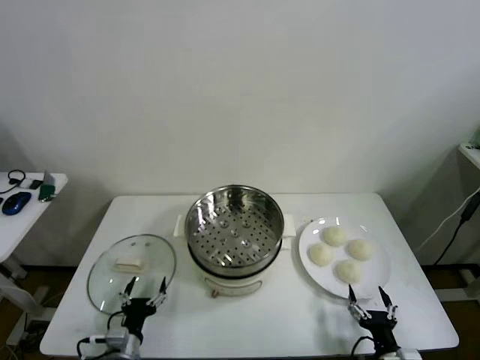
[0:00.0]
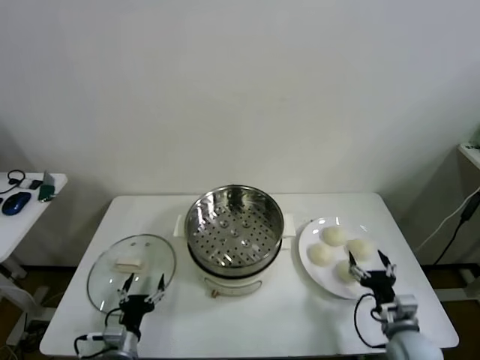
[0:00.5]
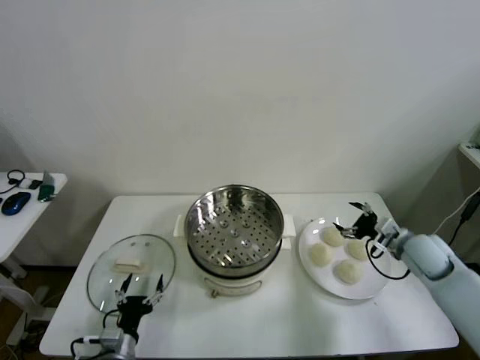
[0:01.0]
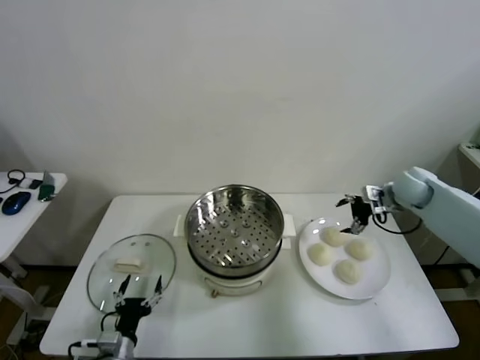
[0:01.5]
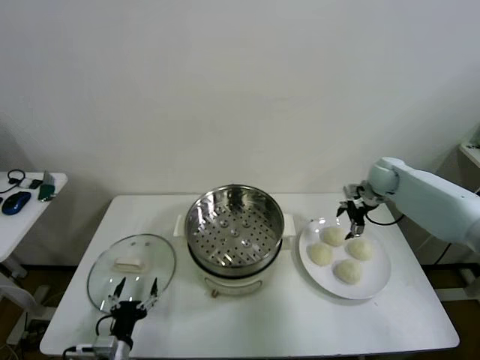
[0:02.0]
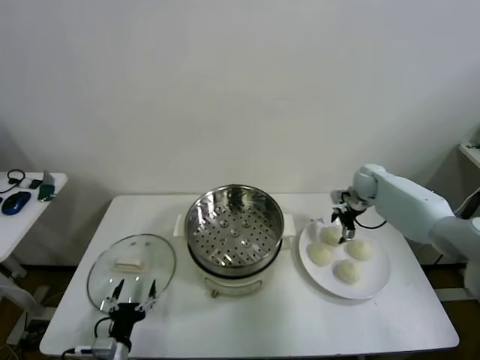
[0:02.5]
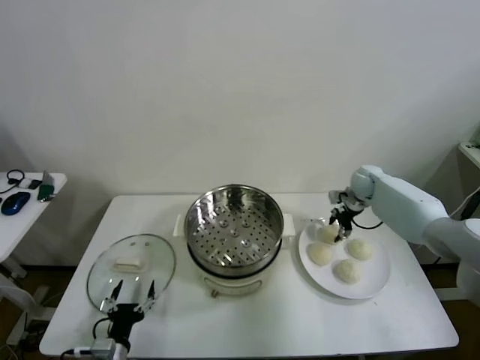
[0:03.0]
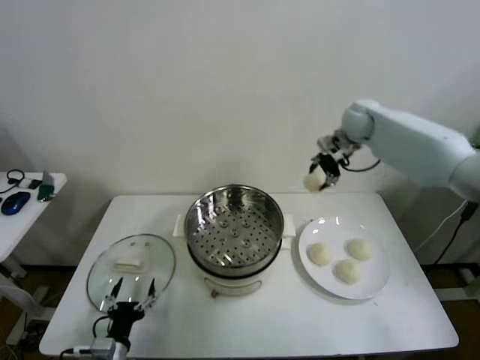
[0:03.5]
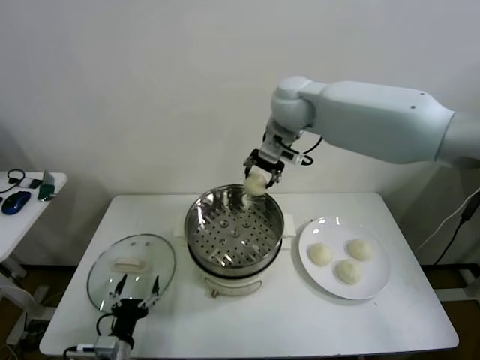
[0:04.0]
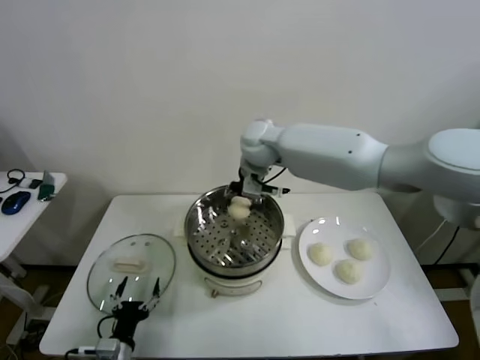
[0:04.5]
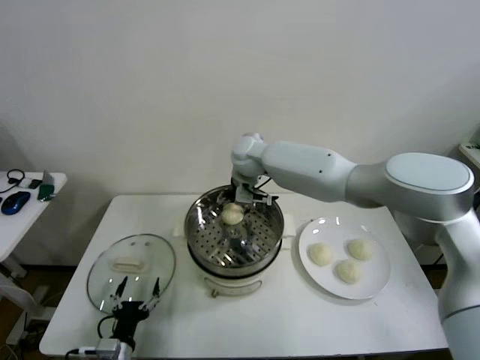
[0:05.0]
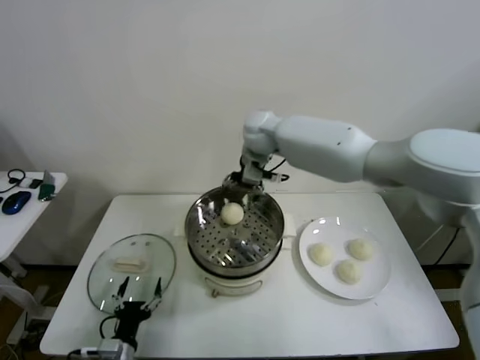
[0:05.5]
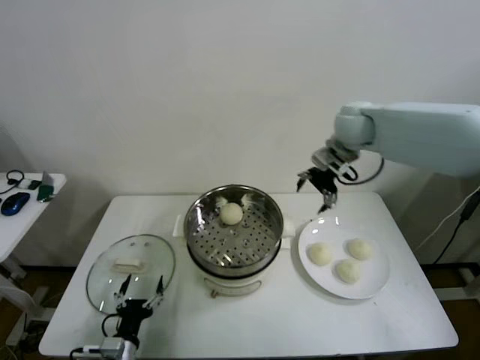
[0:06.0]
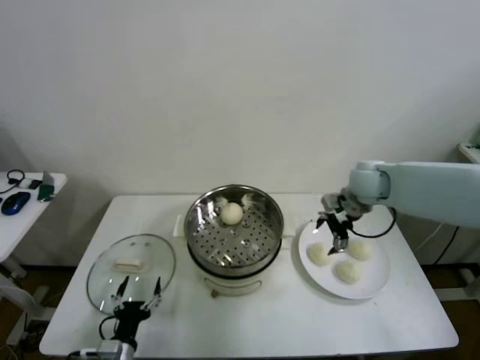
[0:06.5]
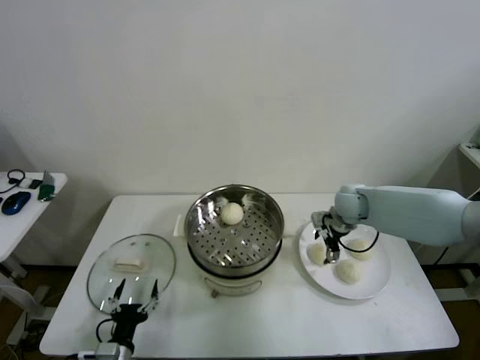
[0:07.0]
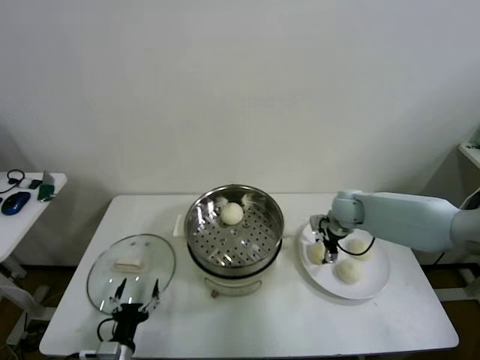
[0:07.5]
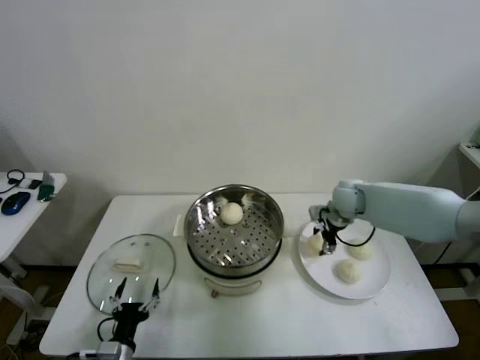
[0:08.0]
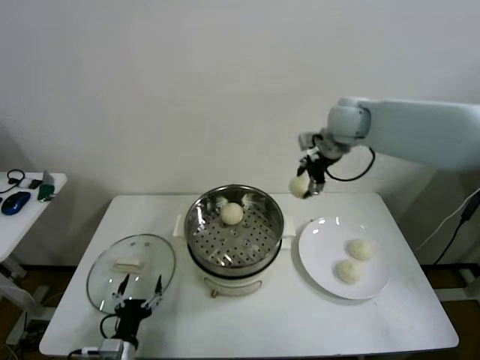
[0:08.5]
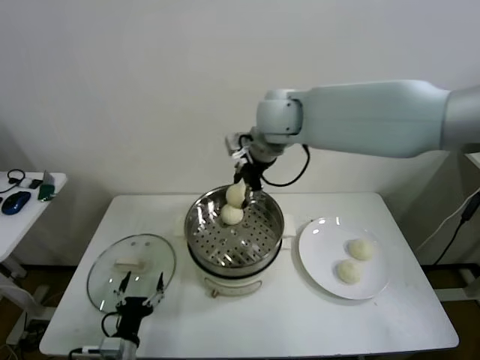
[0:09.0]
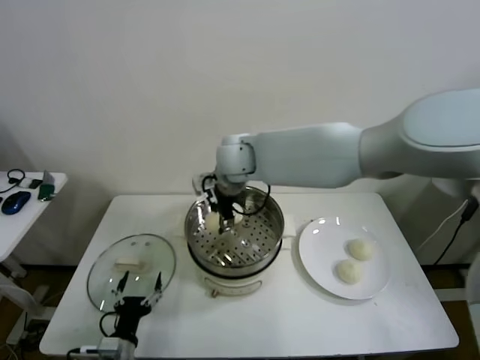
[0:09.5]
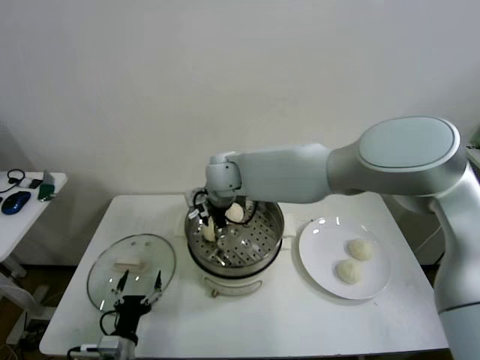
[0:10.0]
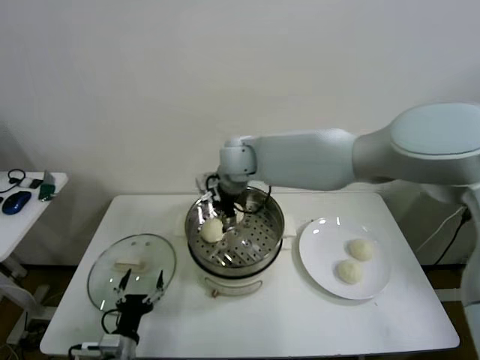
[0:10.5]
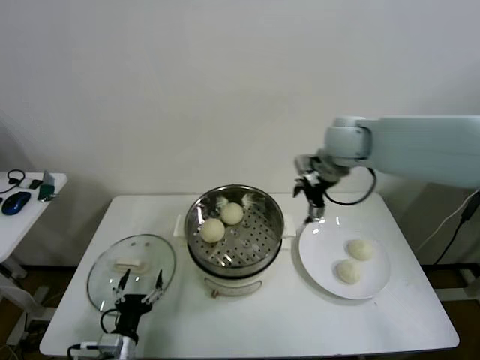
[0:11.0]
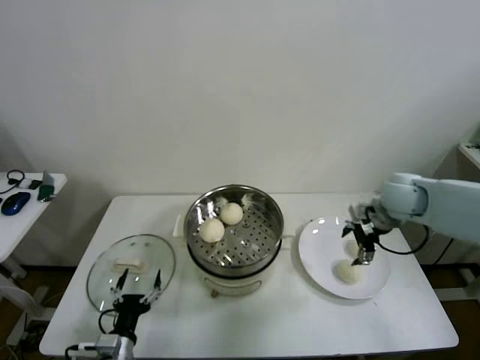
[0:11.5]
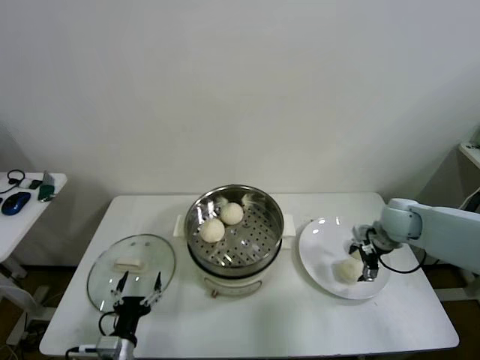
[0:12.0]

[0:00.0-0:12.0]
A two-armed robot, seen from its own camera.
Step, 0:00.0 to 0:02.5: Grasp the baozi in the plate with right gripper.
Step, 0:03.0 to 0:05.0: Place the baozi on the steamer with right gripper.
Step, 0:05.5 to 0:07.5: Grasp the baozi in the plate with right gripper.
Step, 0:08.0 to 0:10.0: Place the baozi on the steamer with right gripper.
0:02.0 to 0:04.0: The right gripper goes some 35 cm to the left and upward, and closes its fingers.
0:04.0 to 0:06.0: The right gripper moves to the right, approximately 20 cm, and opens.
0:06.0 to 0:08.0: The right gripper goes about 15 cm downward, and closes up.
0:08.0 to 0:10.0: The right gripper heads to the left, covering approximately 30 cm.
0:10.0 to 0:12.0: The right gripper travels to the right by some 40 cm, and opens up.

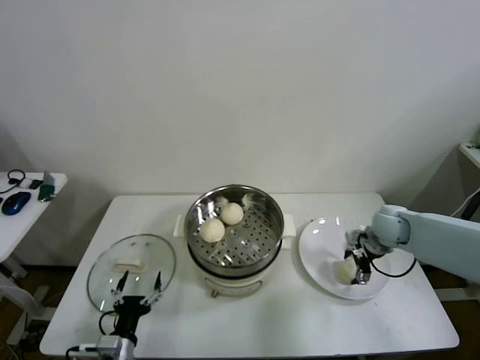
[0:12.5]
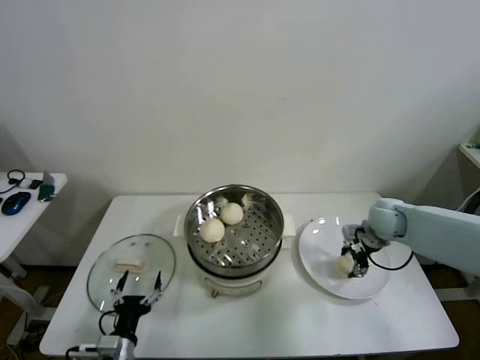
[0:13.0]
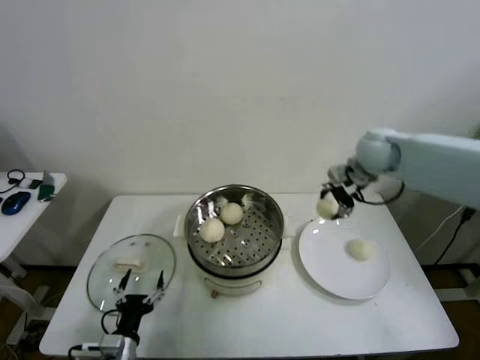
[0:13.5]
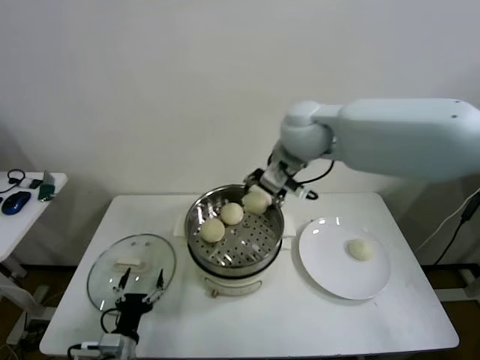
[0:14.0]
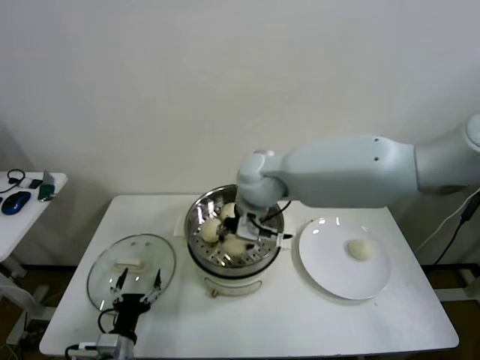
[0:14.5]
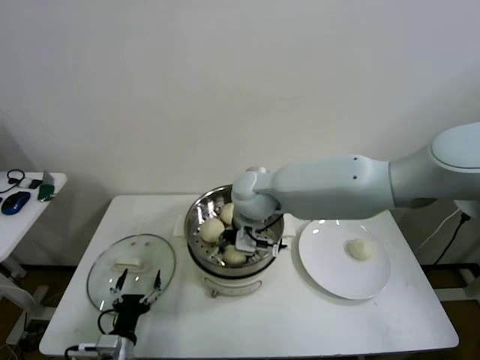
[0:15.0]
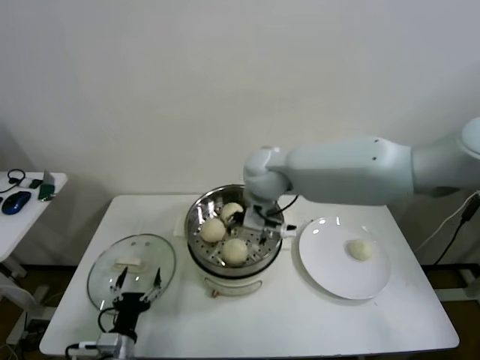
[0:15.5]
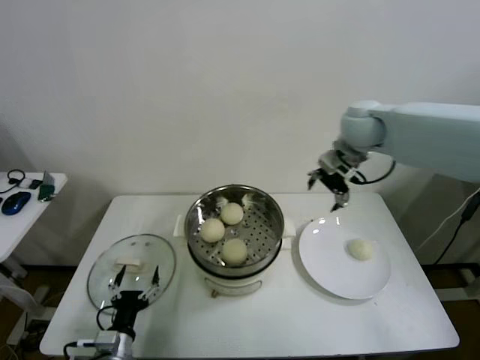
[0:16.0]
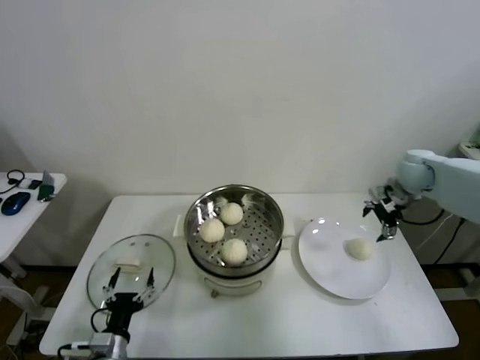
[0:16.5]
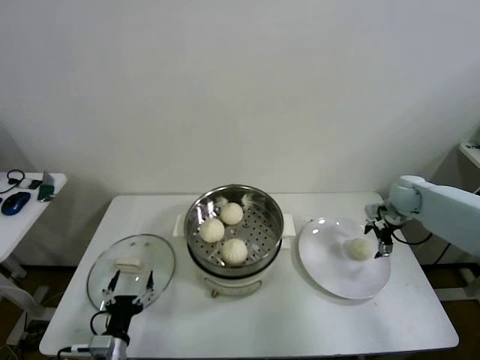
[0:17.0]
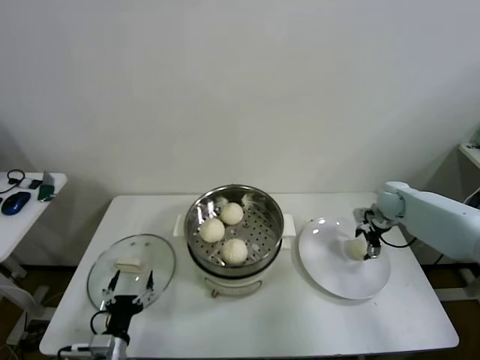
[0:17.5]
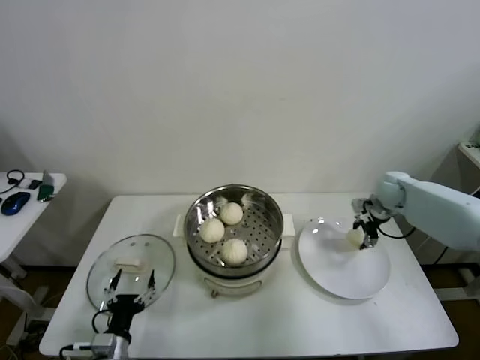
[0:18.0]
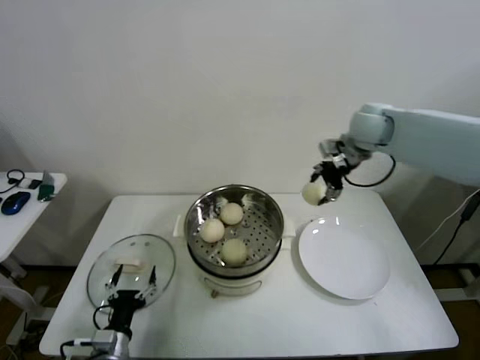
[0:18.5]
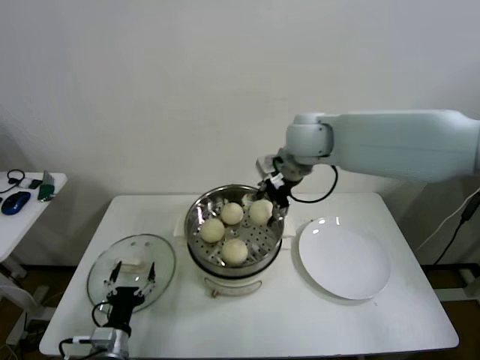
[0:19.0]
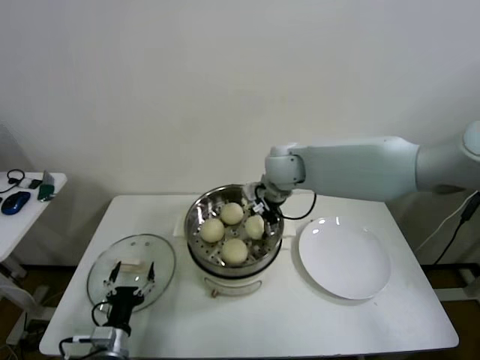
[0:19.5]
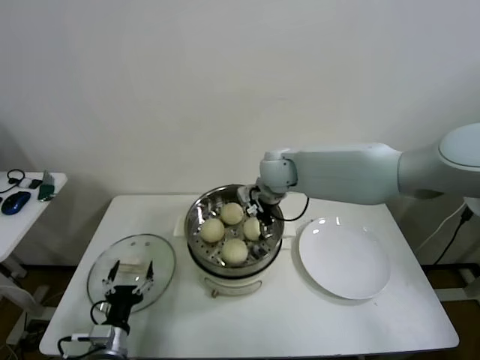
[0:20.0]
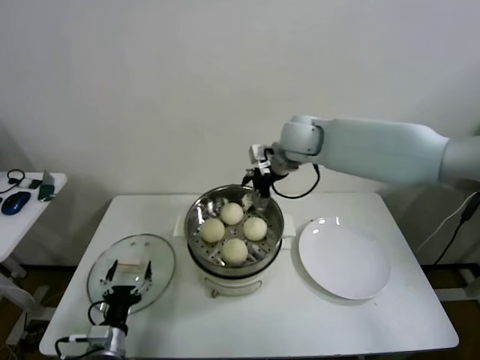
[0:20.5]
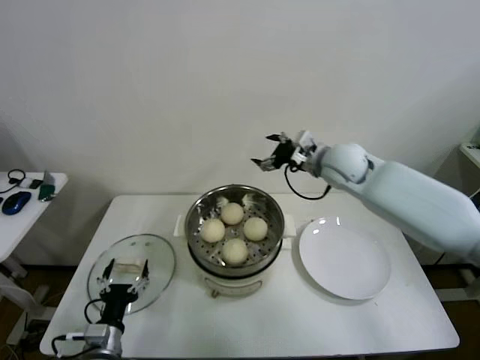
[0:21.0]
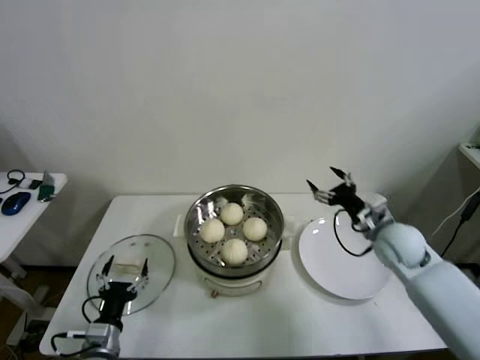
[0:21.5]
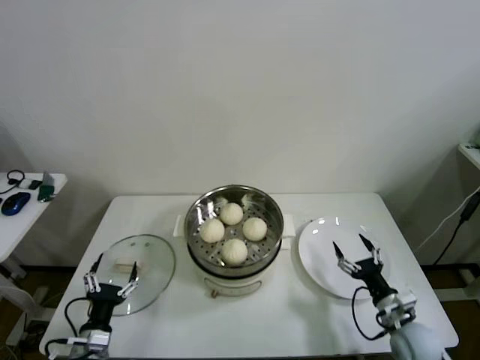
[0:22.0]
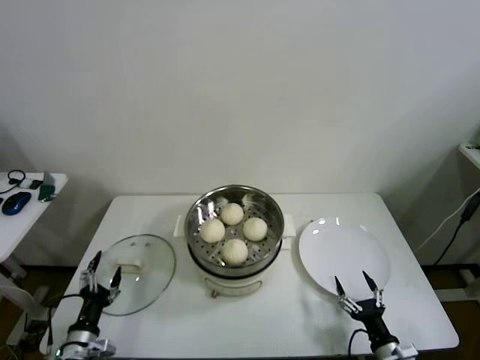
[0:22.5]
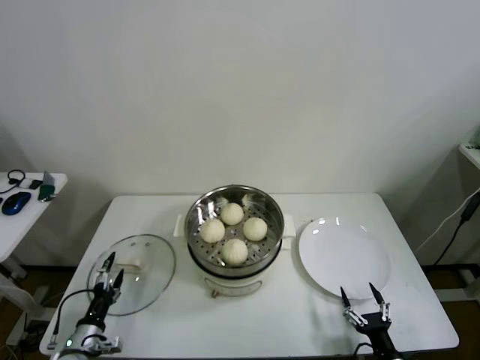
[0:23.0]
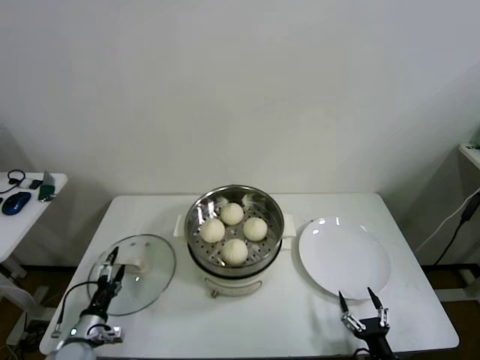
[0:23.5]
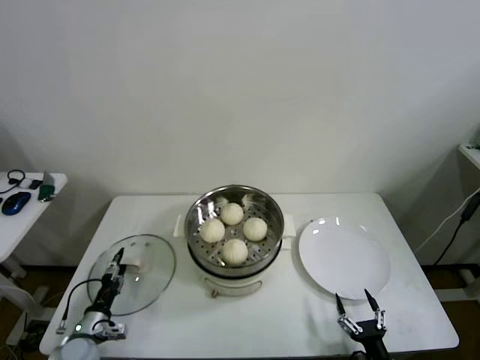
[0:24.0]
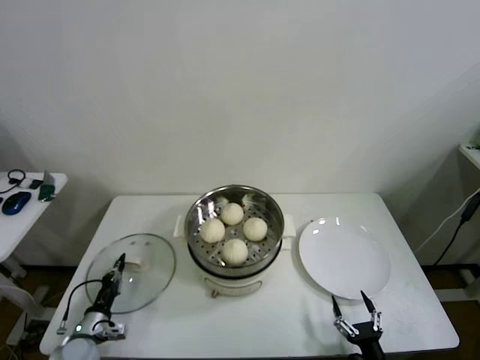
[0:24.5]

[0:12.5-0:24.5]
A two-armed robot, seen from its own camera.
Step, 0:13.0 to 0:15.0: Place the baozi on the steamer with right gripper.
Step, 0:15.5 to 0:17.5: Grasp the baozi in the plate with right gripper.
Step, 0:18.0 to 0:20.0: Place the baozi on the steamer with right gripper.
Step, 0:20.5 to 0:24.0: Grasp the pot lid with left gripper.
0:12.5 to 0:14.5: The right gripper moves to the left and upward, some 40 cm, and closes up.
0:14.5 to 0:16.5: The right gripper heads to the right, covering approximately 40 cm, and opens up.
0:16.5 to 0:18.5: The right gripper is displaced to the left and upward by some 20 cm, and closes its fingers.
0:18.5 to 0:20.5: The right gripper goes roughly 15 cm to the left, and opens its fingers.
0:20.5 to 0:22.5: The left gripper goes about 5 cm to the left. The right gripper is displaced downward, backward and to the right by about 60 cm.
0:22.5 to 0:24.5: The right gripper shifts approximately 5 cm backward. The left gripper is displaced downward and forward by about 10 cm, and closes up.

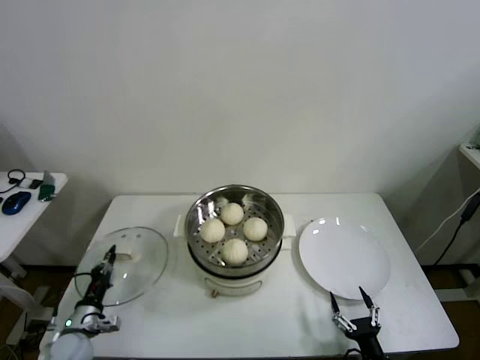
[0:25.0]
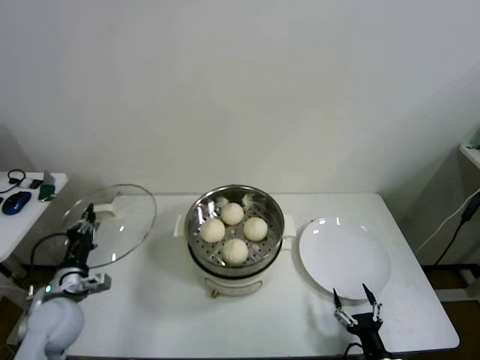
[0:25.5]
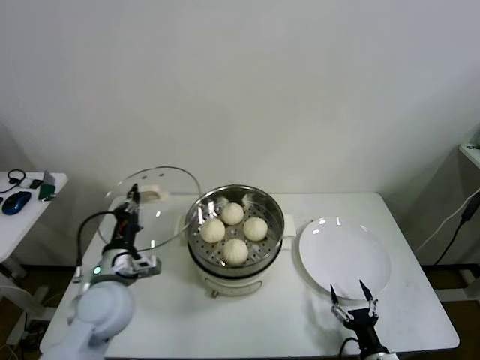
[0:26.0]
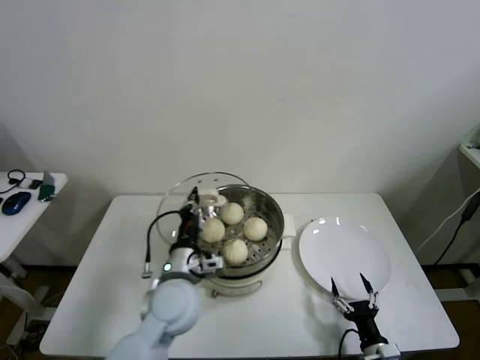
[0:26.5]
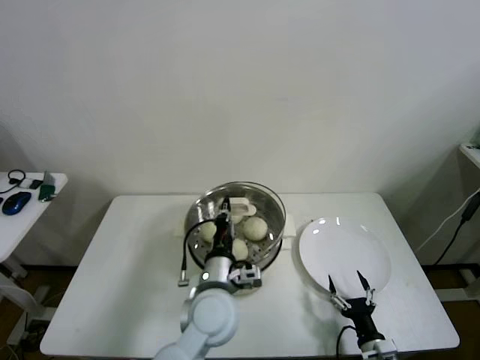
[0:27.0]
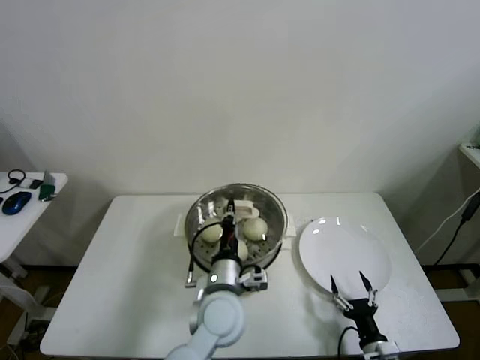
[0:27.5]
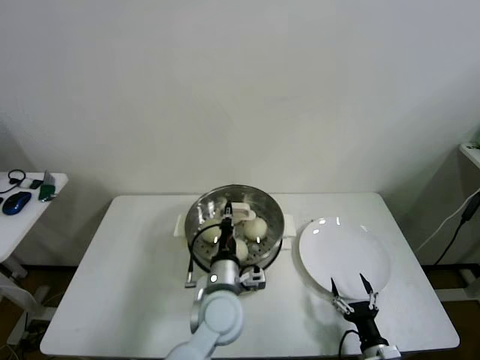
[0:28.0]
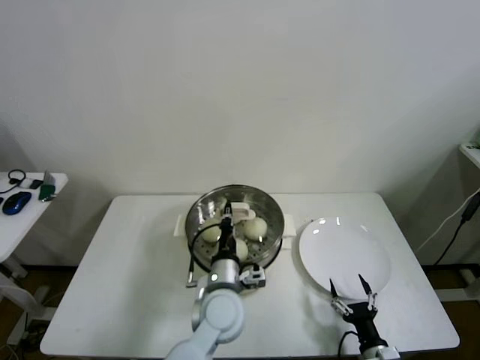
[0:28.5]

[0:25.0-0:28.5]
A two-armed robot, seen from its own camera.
0:25.0 to 0:27.0: The left gripper shifts roughly 40 cm to the right and upward. The right gripper moves forward, about 5 cm.
0:27.0 to 0:28.5: There are only small adjustments of the grippers.
